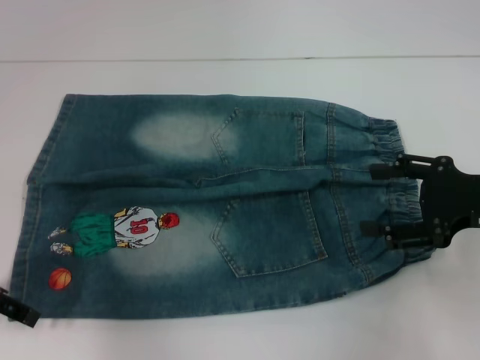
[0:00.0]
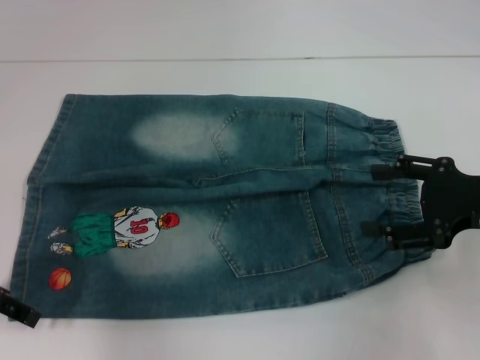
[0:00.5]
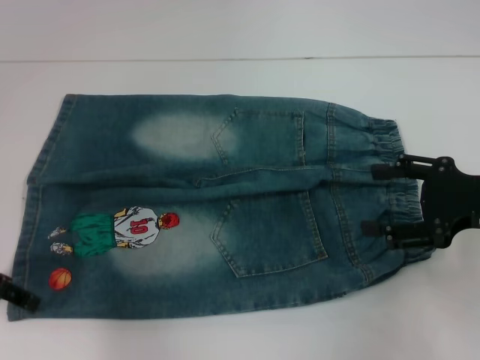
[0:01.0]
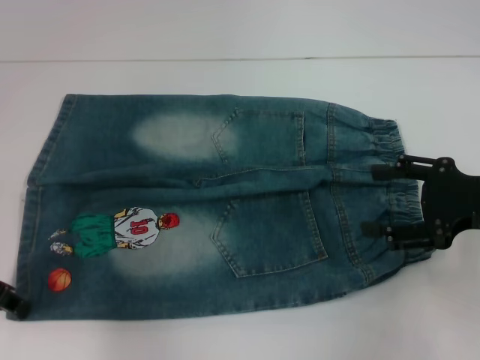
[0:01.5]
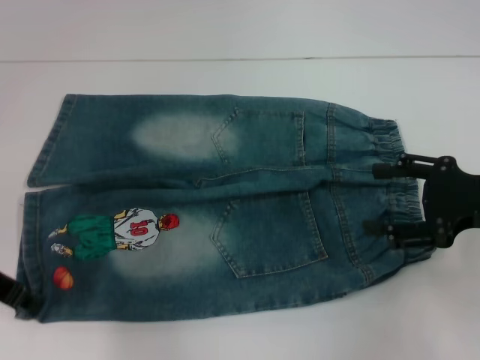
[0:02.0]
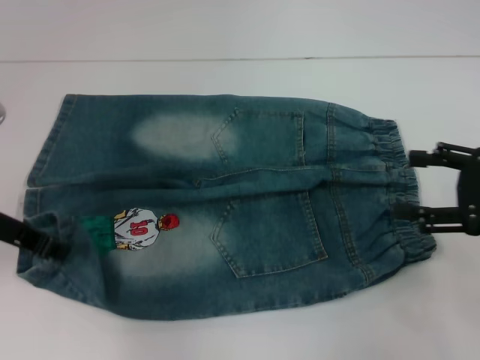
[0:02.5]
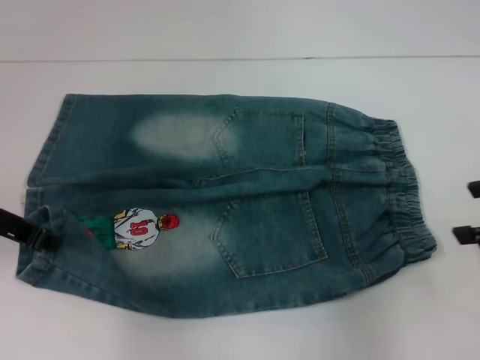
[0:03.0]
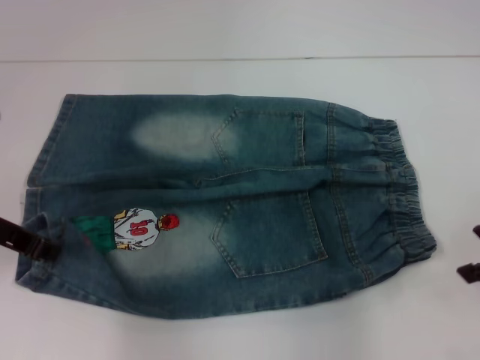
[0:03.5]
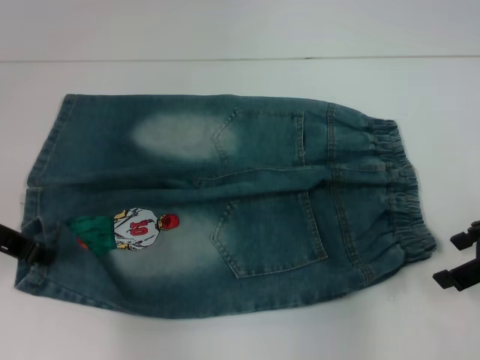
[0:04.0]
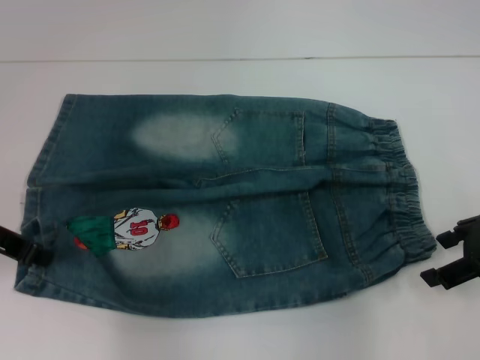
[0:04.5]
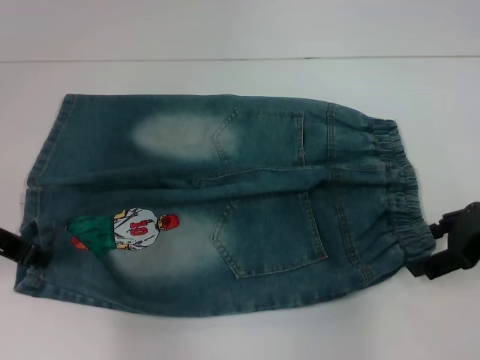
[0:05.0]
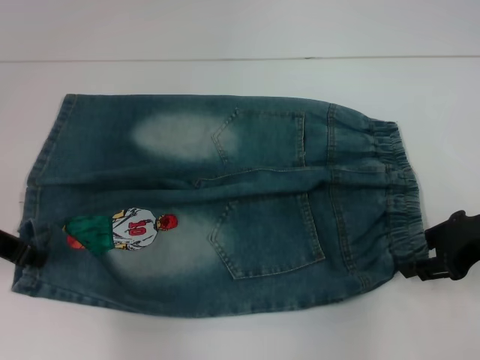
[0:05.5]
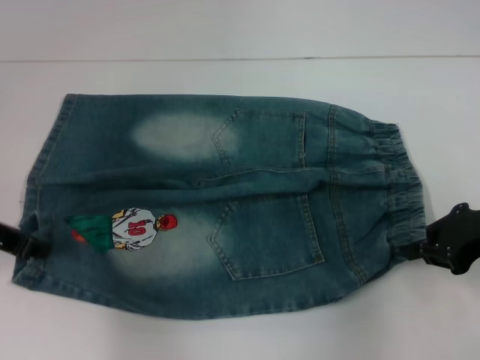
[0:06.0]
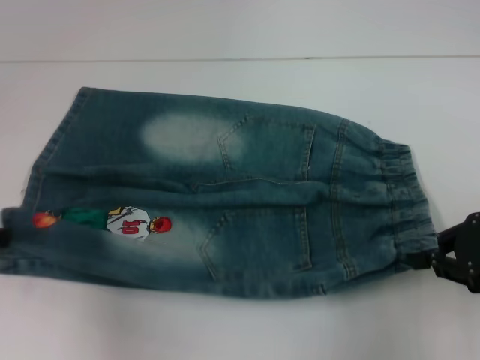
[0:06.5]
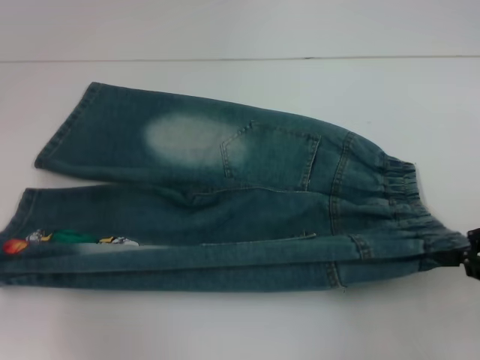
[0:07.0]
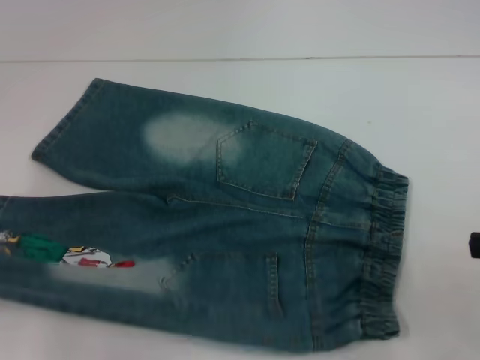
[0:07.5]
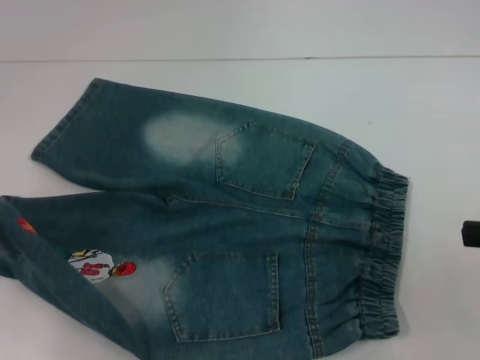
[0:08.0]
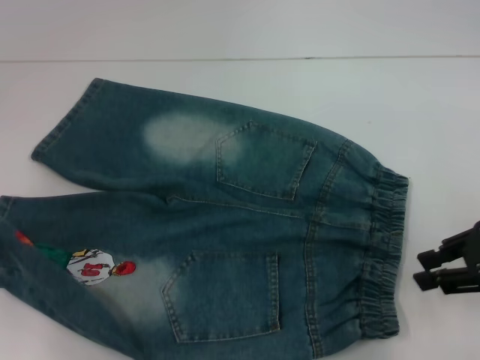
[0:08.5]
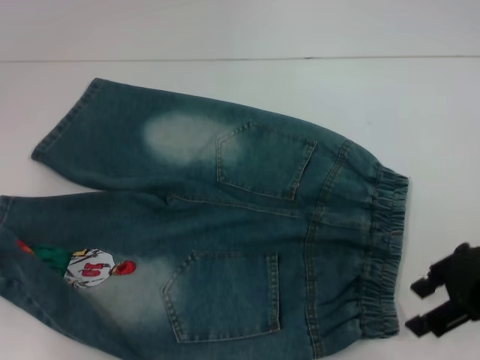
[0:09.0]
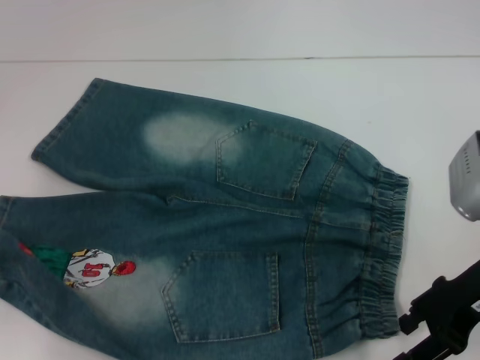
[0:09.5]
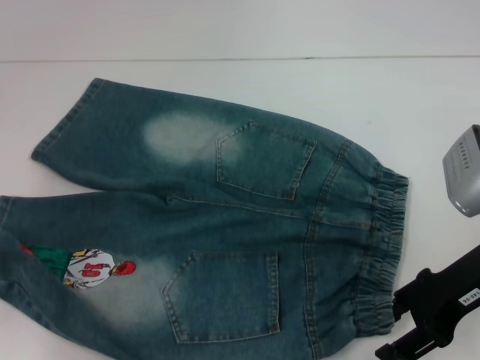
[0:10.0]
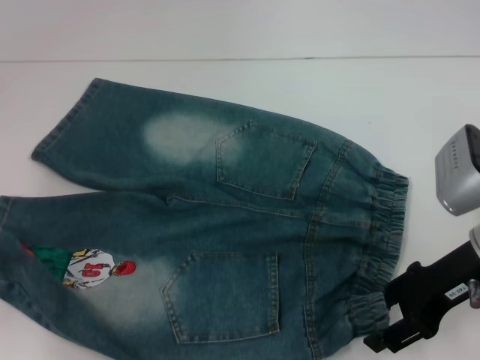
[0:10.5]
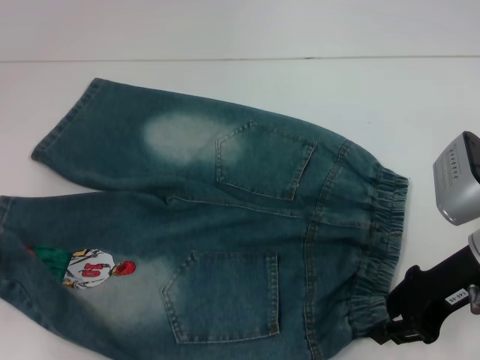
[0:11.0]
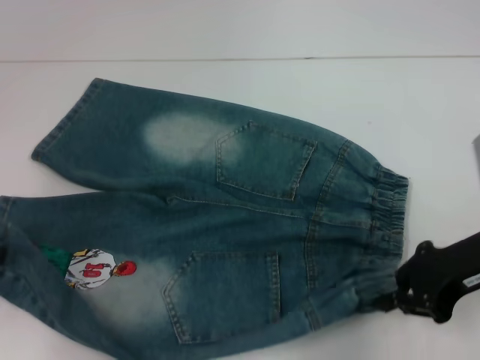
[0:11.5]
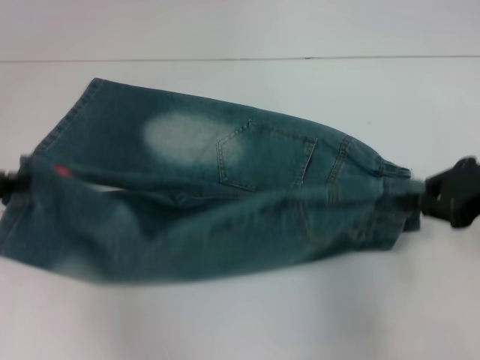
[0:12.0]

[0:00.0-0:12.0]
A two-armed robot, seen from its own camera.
Step, 0:02.0 to 0:11.0: Hold the lower right waistband with your right hand.
0:00.0 to 0:02.0: The left gripper closes up.
0:04.0 to 0:06.0: The right gripper closes up.
0:06.0 to 0:08.0: The right gripper moves backward and to the right, roughly 10 cm, while the left gripper moves to the left and backward, some 10 cm.
0:08.0 to 0:10.0: The right gripper is displaced to the left and forward by approximately 15 cm, and opens its fingers.
0:10.0 to 0:12.0: The right gripper is displaced to the right by about 5 cm, and closes its fingers. The left gripper shifts roughly 5 cm forward.

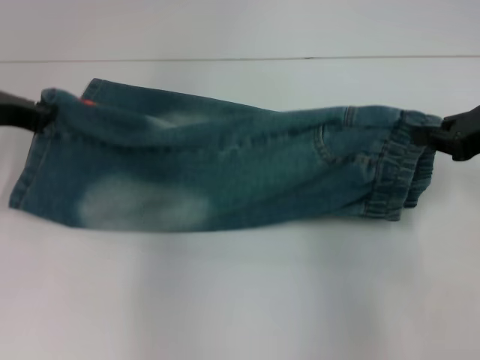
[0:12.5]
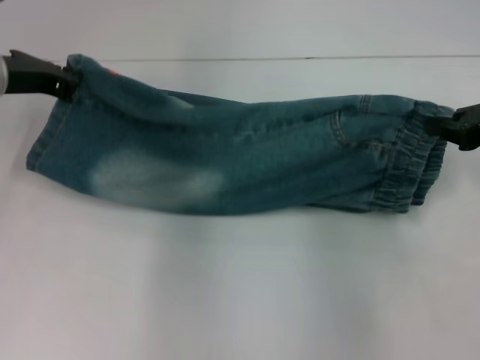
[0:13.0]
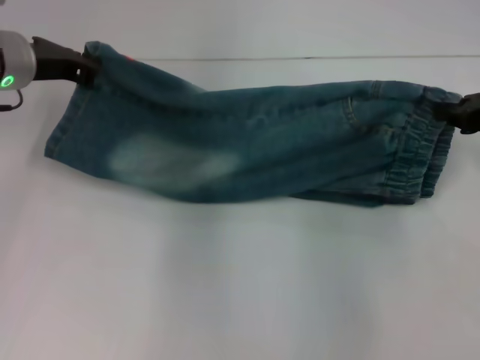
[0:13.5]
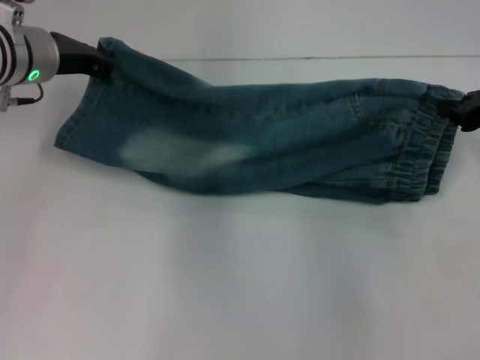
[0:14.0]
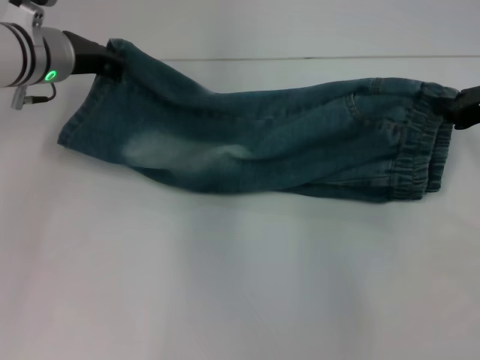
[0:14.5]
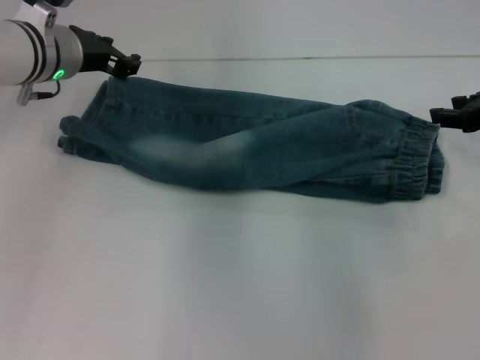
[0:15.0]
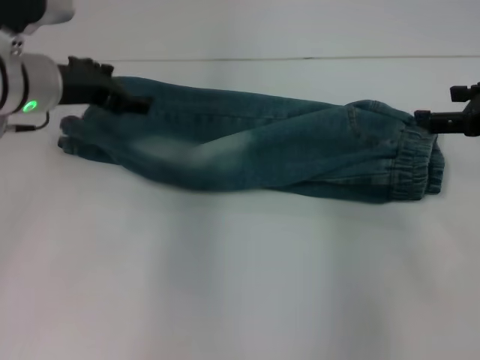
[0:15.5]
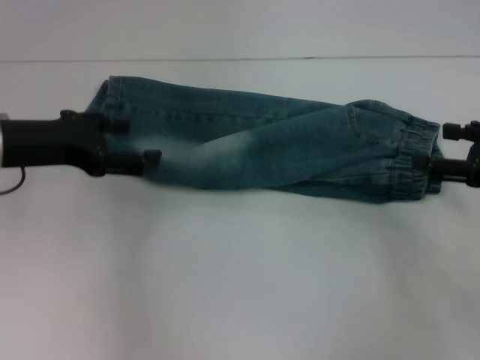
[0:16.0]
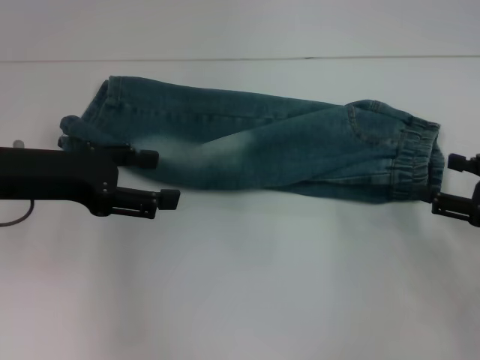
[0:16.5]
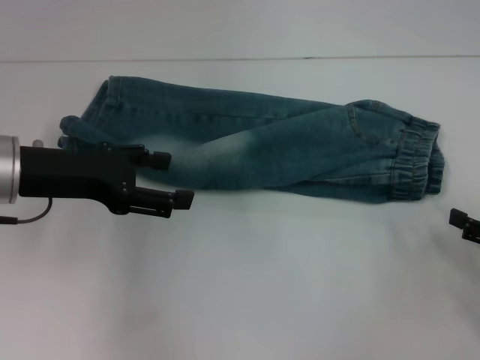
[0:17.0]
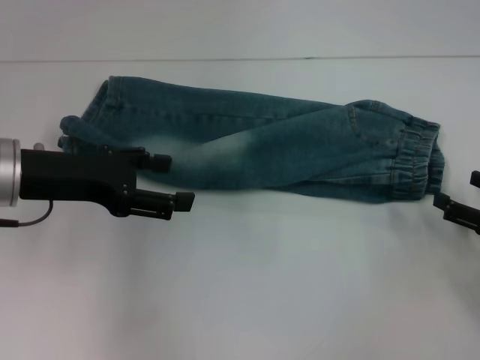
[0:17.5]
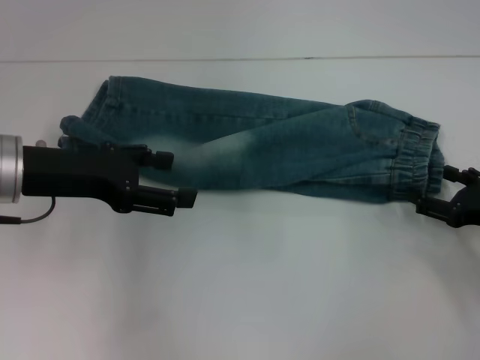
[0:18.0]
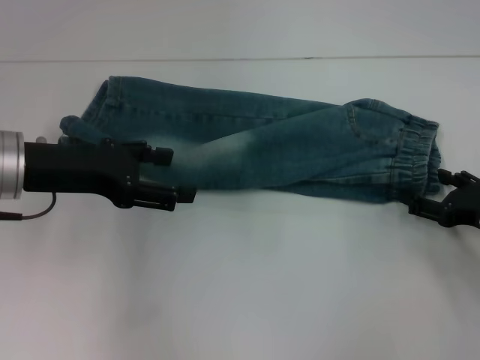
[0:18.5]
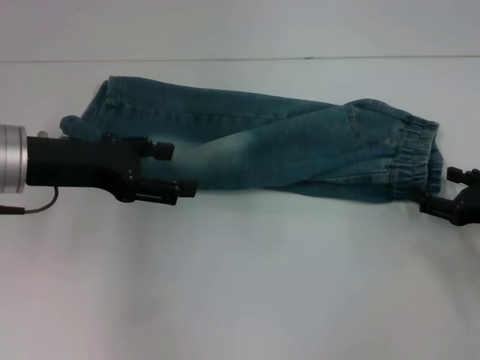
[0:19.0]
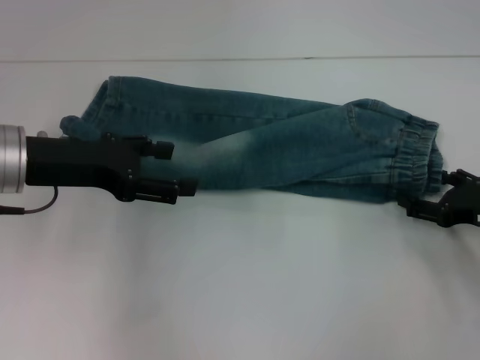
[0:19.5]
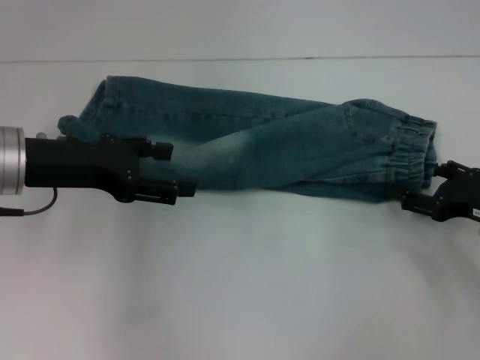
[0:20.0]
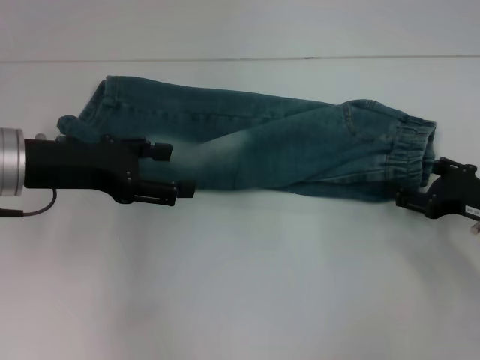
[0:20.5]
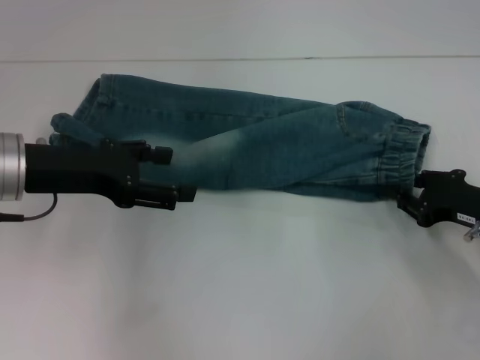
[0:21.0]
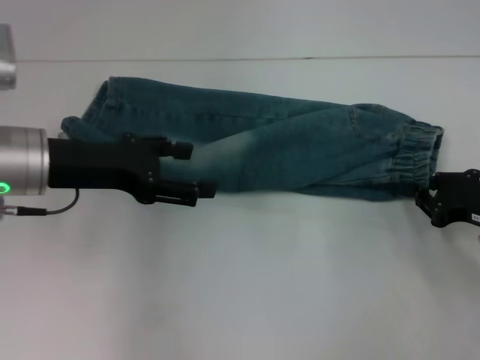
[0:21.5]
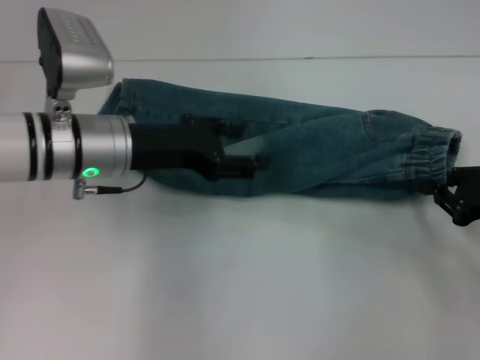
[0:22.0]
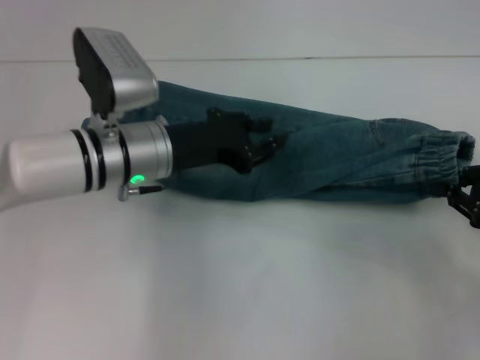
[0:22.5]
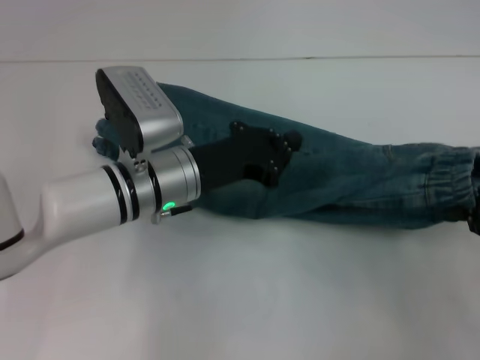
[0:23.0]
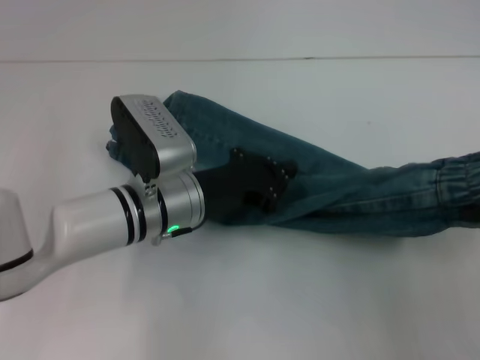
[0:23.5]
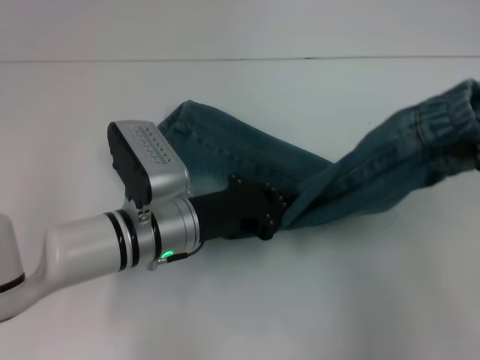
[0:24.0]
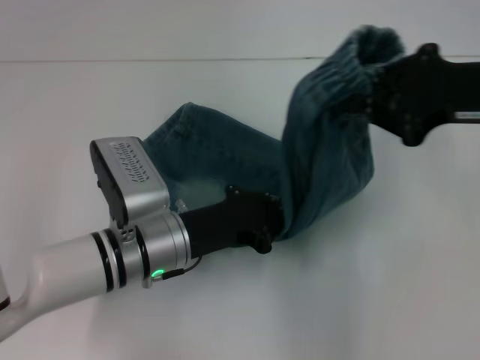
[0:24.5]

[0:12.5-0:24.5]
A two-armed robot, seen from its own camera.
Step, 0:12.5 to 0:14.5: Fold upward with your left hand.
Step, 0:15.0 to 0:21.0: Grab the waistband with your right hand.
Step, 0:21.5 to 0:24.0: Press the middle of the pants with your left hand.
0:12.5 to 0:14.5: The left gripper moves to the right and forward, roughly 10 cm.
0:14.5 to 0:16.5: The right gripper travels backward and downward by some 15 cm, and opens its fingers. The left gripper shifts roughly 15 cm backward, and opens its fingers.
0:16.5 to 0:18.5: The right gripper moves some 5 cm.
0:18.5 to 0:20.5: The grippers make only small movements.
0:20.5 to 0:22.5: The left gripper is displaced to the right and downward by some 10 cm, and closes up. The right gripper is displaced upward by some 5 cm, and closes up.
0:22.5 to 0:24.5: The right gripper heads upward and to the left, covering approximately 15 cm. The left gripper moves backward and downward, approximately 10 cm, and closes.

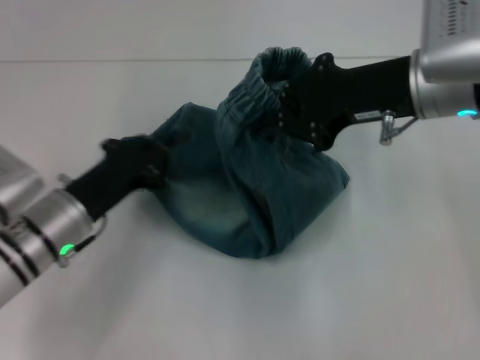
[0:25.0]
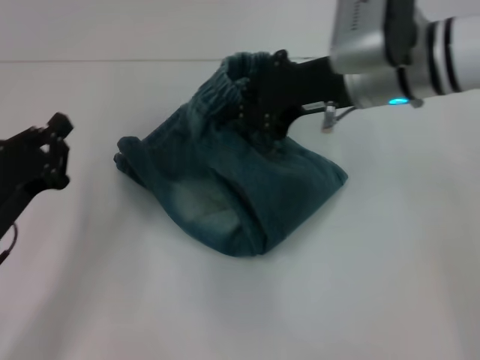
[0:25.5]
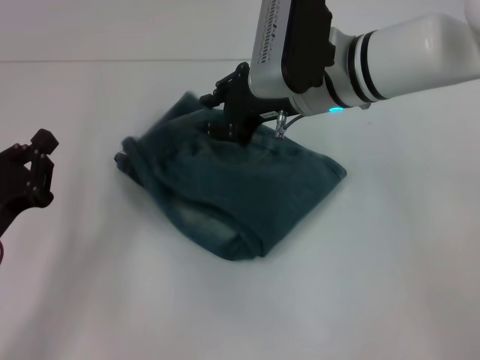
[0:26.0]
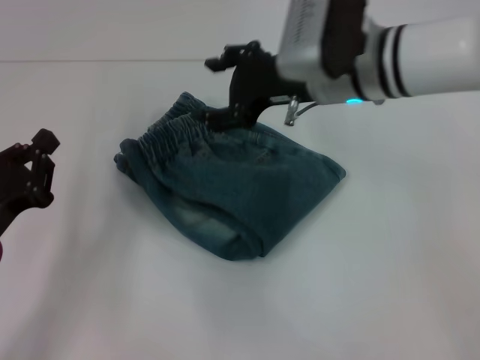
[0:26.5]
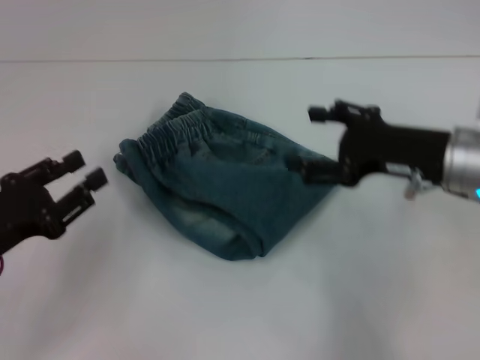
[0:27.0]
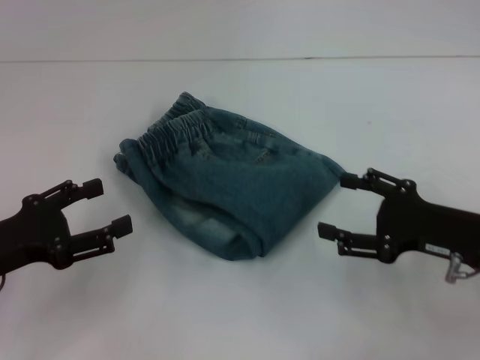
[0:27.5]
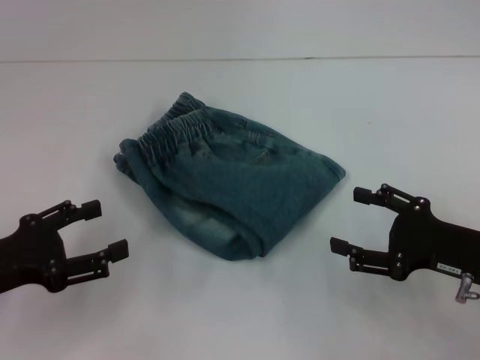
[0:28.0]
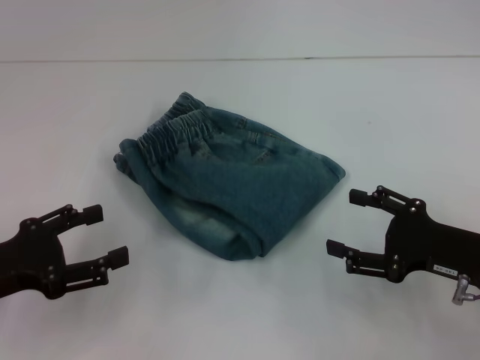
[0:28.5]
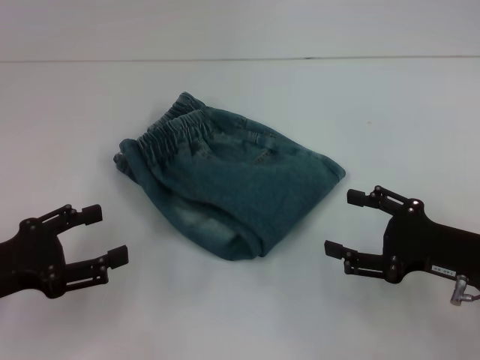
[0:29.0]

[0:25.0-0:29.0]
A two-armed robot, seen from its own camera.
Step, 0:25.0 to 0:26.0: Fold to the left with your right hand.
0:25.0 to 0:27.0: The right gripper goes some 10 cm downward and to the right, and opens, while the left gripper is displaced to the left and backward by roughly 10 cm, and opens up.
0:27.0 to 0:29.0: The left gripper opens up. Meanwhile the right gripper heads backward and downward, covering approximately 10 cm.
